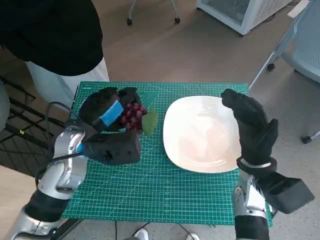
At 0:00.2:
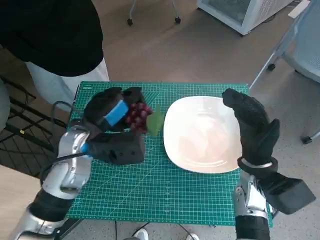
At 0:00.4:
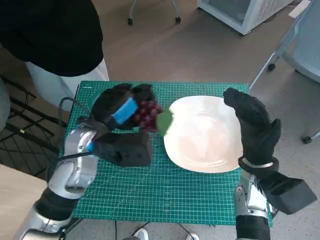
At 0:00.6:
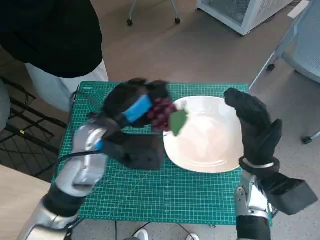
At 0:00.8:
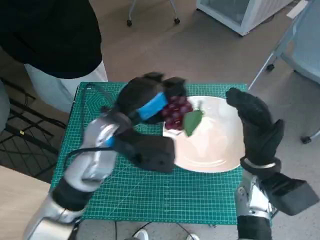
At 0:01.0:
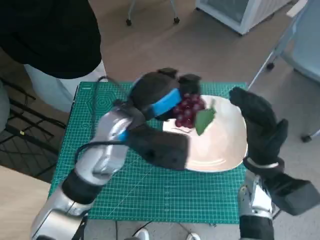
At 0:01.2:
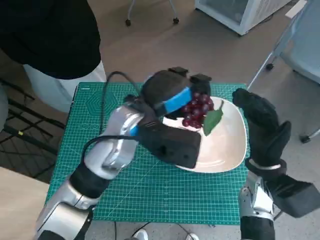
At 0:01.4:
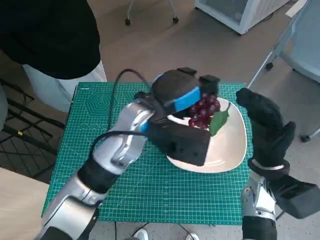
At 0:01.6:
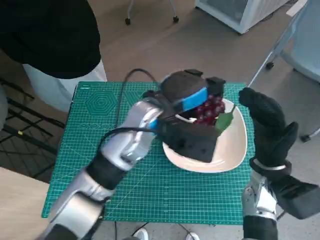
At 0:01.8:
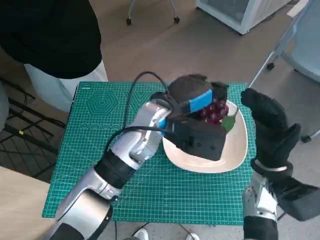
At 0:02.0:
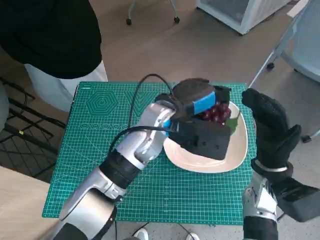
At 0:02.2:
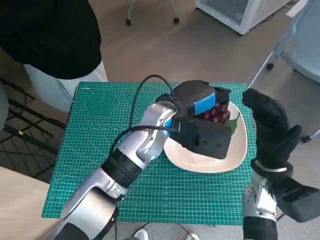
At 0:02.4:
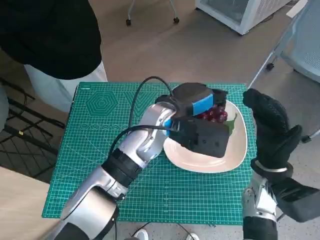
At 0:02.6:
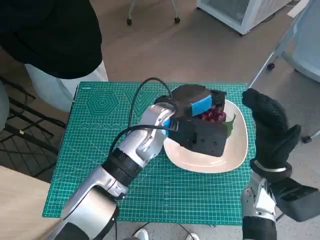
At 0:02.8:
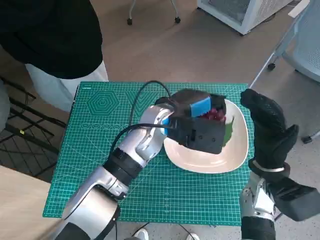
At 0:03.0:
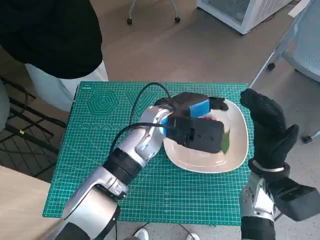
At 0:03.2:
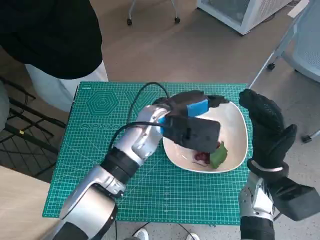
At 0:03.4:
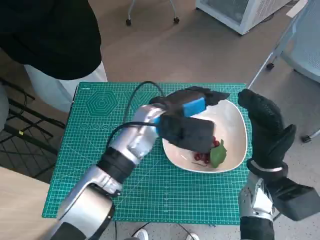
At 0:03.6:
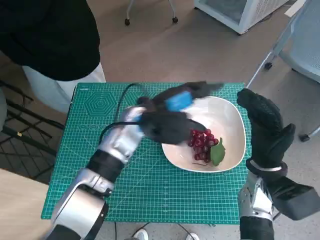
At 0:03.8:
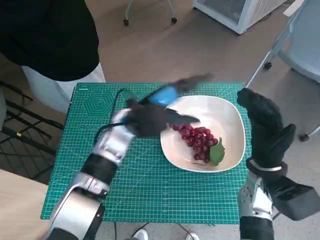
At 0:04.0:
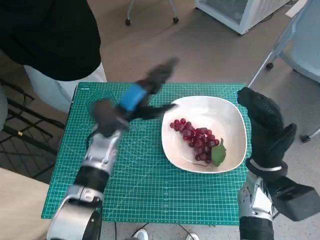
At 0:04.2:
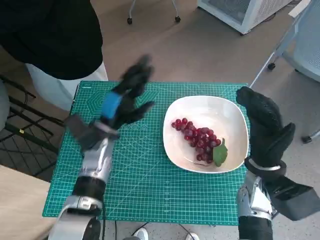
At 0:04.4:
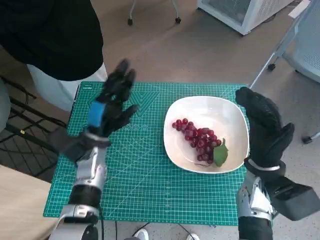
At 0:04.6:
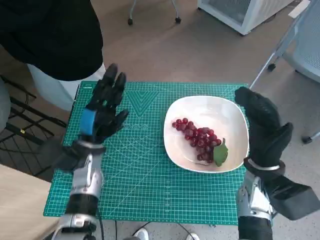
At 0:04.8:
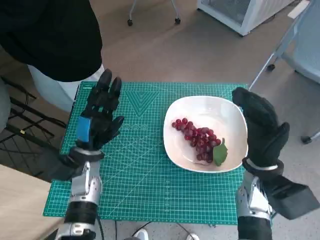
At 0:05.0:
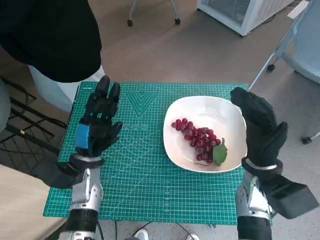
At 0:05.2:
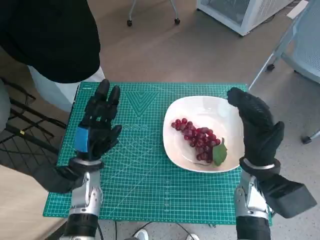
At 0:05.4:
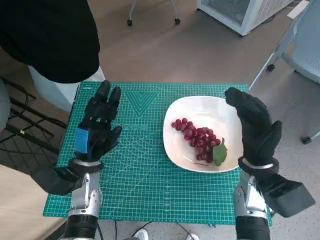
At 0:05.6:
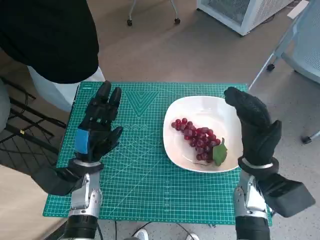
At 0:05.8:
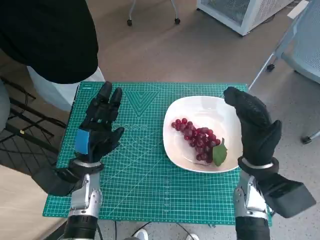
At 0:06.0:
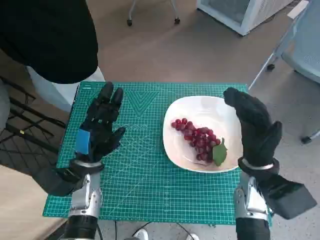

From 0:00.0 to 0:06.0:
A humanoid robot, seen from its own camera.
Task of the whole recording: Pick up the grapes and put them on the plate.
Step, from 0:00.0 to 0:03.2: Place the grapes in the plate with left hand.
From 0:00.0 to 0:01.6: The left hand goes approximately 15 cm to the right.
From 0:03.0 to 0:04.4: The left hand goes roughly 15 cm to the left and downward.
From 0:04.4 to 0:06.0: The left hand goes about 5 cm backward.

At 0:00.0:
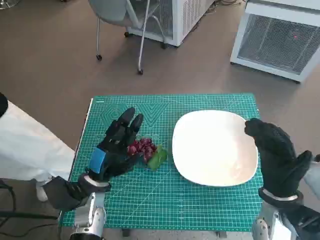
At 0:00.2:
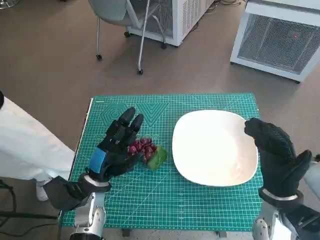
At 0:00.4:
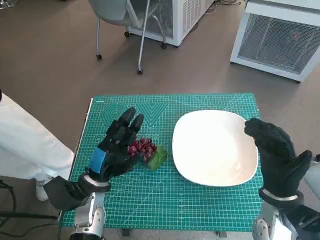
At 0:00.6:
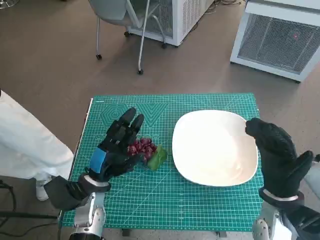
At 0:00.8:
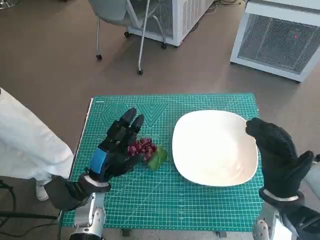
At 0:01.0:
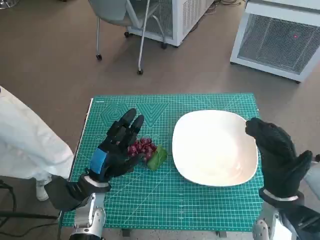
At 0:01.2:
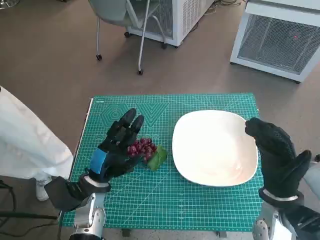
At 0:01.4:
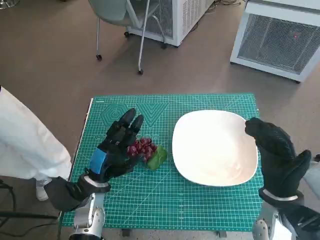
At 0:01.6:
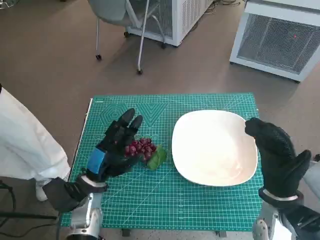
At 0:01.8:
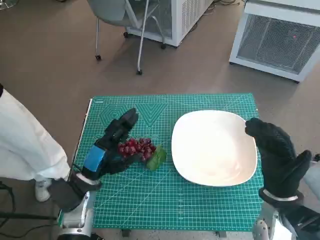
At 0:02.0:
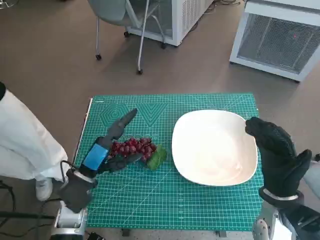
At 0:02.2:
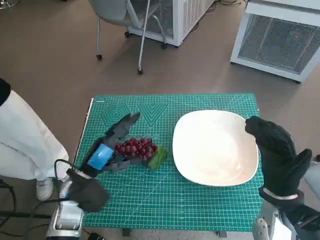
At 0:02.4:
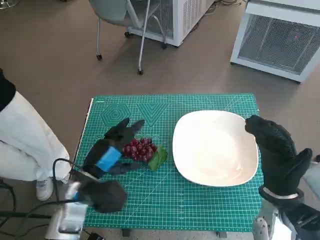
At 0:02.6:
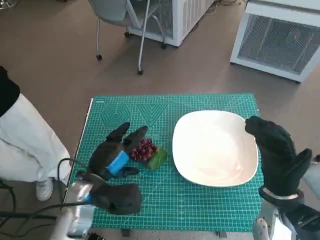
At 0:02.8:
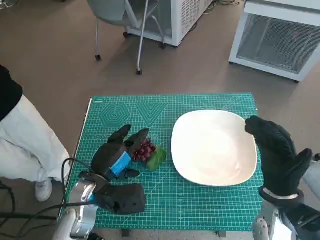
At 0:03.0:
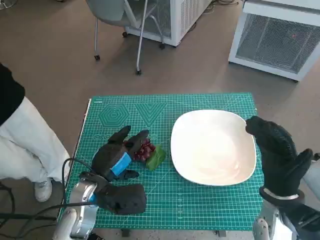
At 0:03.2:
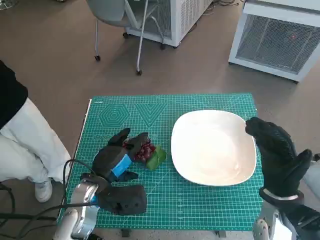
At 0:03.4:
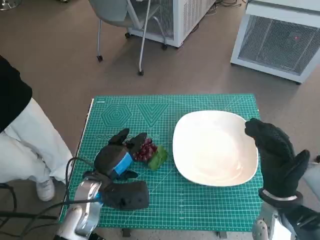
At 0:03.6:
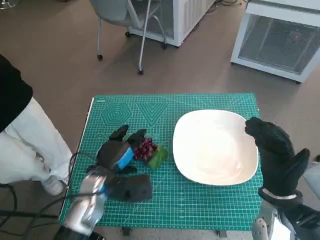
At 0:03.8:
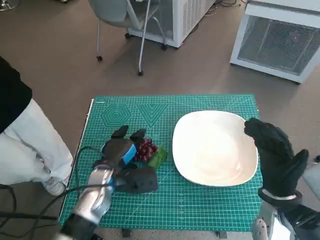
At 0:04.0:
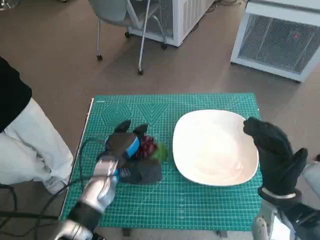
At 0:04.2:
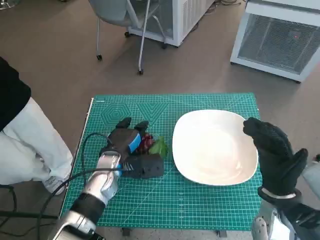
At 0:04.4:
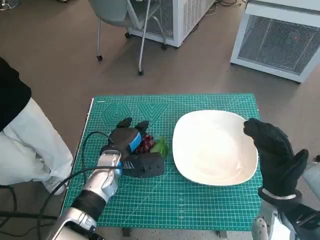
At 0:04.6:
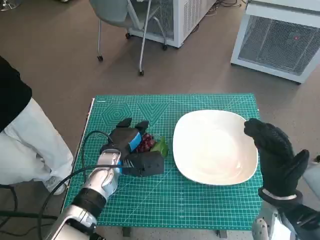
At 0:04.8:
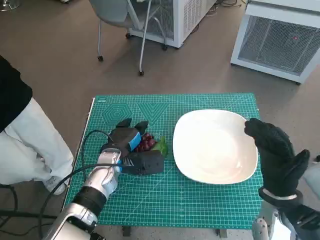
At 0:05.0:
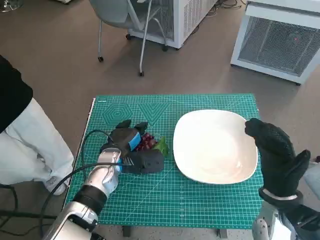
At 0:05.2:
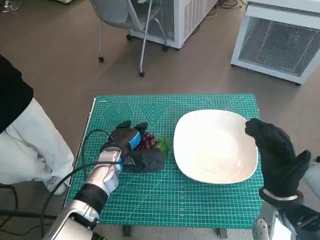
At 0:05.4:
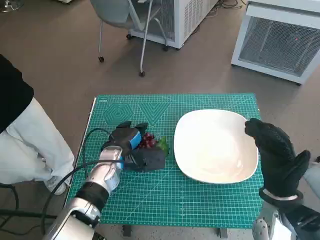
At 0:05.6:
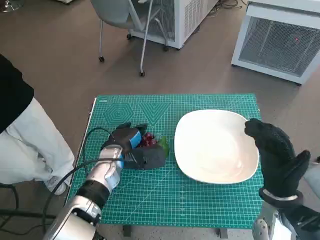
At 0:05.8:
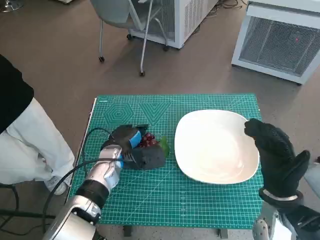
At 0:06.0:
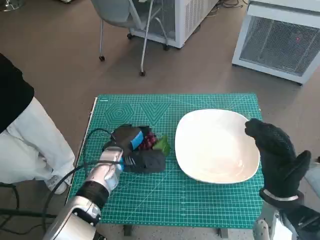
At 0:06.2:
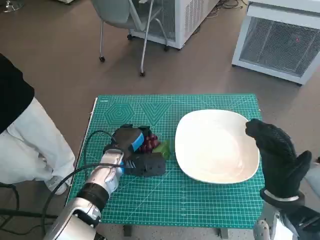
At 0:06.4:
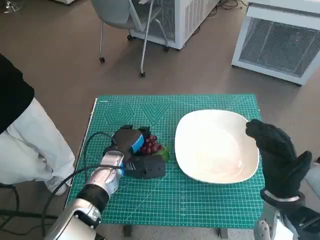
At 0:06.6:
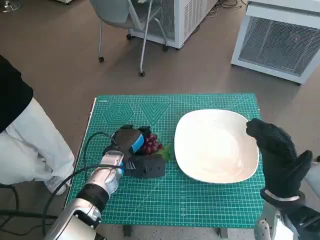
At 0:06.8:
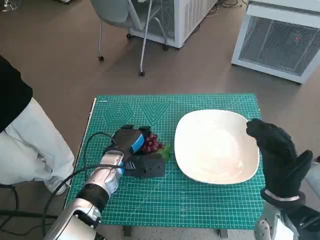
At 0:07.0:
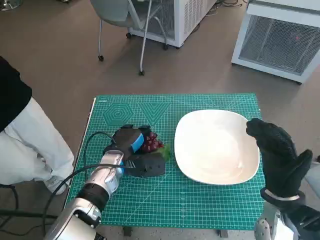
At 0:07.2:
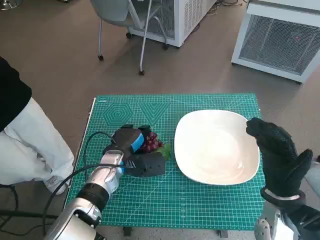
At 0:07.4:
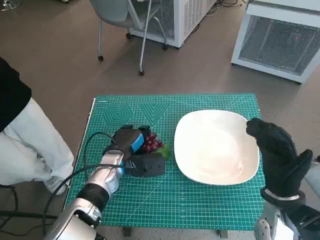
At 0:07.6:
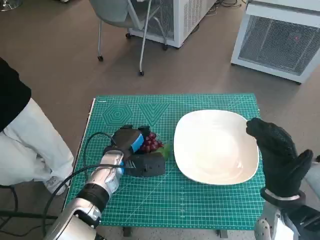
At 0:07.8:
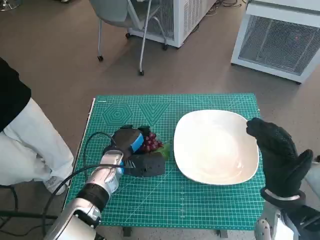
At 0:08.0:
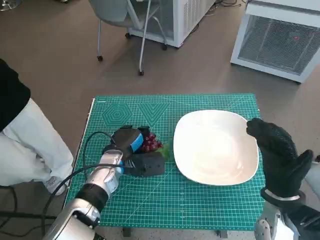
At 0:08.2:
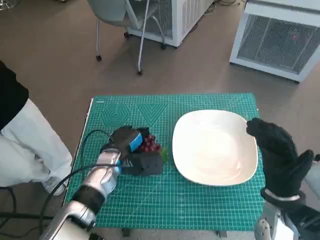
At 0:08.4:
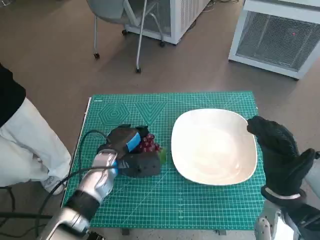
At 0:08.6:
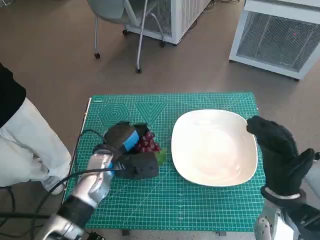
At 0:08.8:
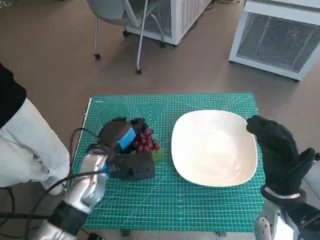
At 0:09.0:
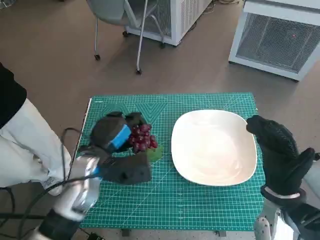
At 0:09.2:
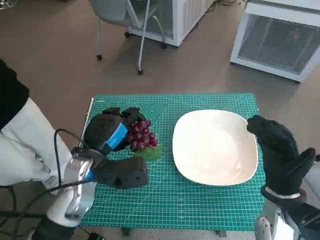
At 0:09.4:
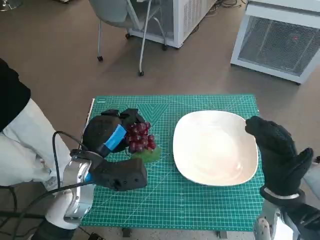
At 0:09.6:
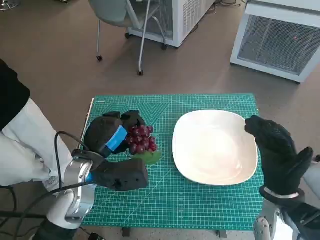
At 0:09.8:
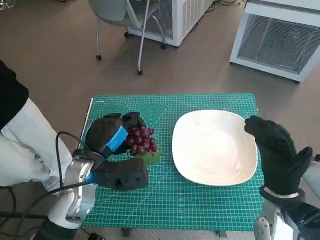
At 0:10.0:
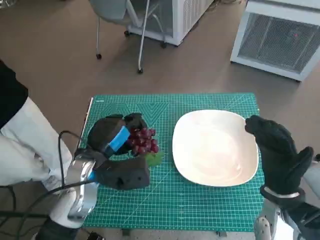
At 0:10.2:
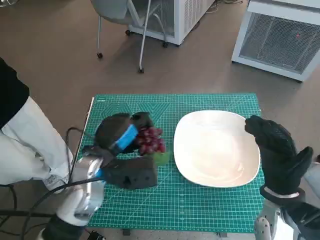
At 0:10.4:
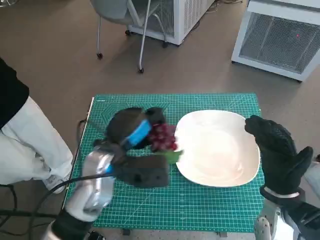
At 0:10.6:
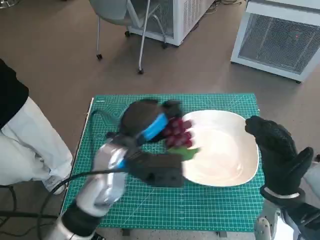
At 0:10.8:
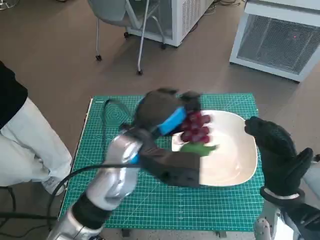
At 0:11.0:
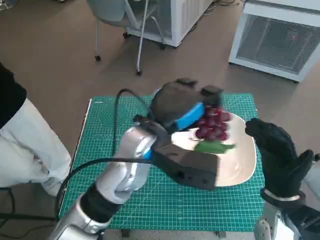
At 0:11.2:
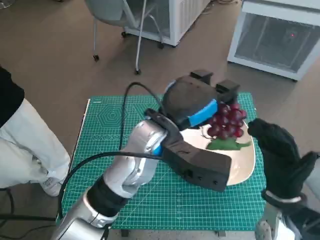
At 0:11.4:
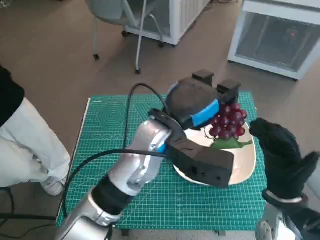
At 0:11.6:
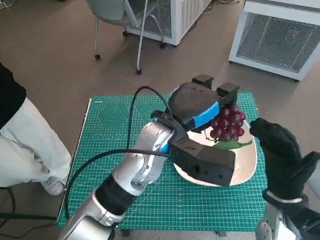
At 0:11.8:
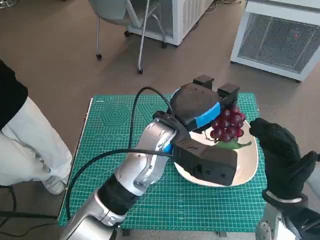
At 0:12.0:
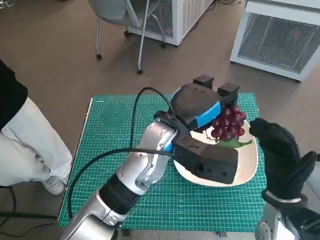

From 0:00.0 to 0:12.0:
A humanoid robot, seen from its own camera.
Task of the whole recording: Pick up the grapes and put them on the plate.
Step, from 0:00.0 to 0:08.0: Grasp the grapes with left hand.
From 0:03.0 to 0:04.4: The left hand travels forward by approximately 10 cm.
From 0:04.4 to 0:06.0: The hands move only a little.
From 0:06.0 to 0:07.6: The two hands keep their place.
From 0:07.6 to 0:09.0: The left hand shifts about 5 cm upward.
From 0:09.0 to 0:10.4: The hands stay close to where they were, moving slightly.
From 0:10.4 to 0:12.0: The left hand goes roughly 10 cm to the right.

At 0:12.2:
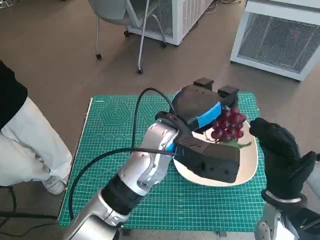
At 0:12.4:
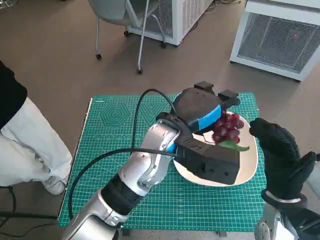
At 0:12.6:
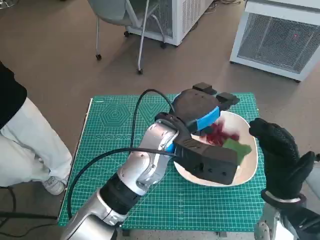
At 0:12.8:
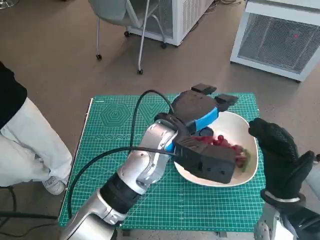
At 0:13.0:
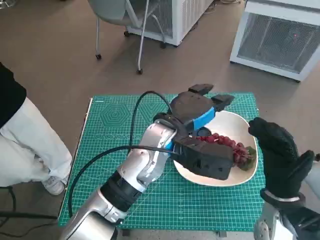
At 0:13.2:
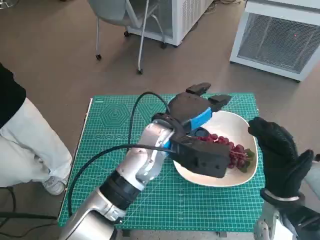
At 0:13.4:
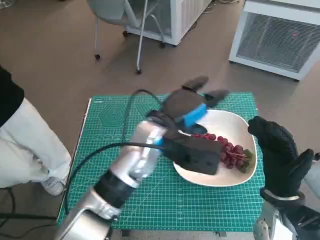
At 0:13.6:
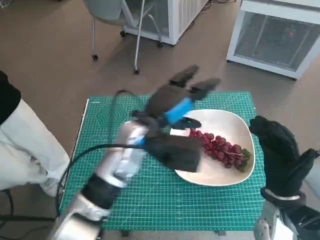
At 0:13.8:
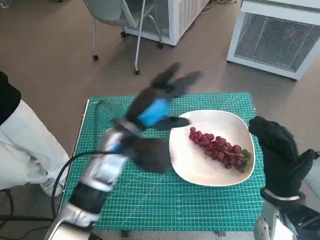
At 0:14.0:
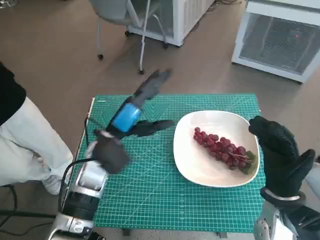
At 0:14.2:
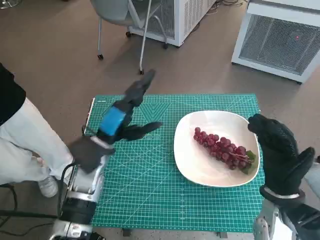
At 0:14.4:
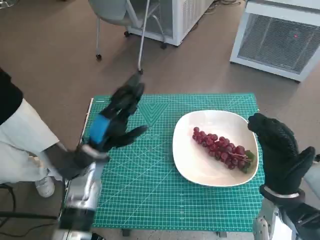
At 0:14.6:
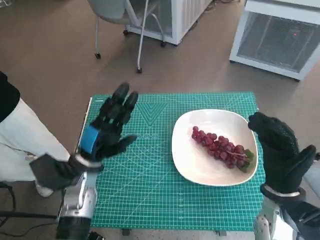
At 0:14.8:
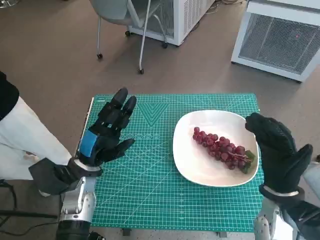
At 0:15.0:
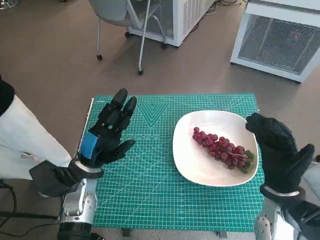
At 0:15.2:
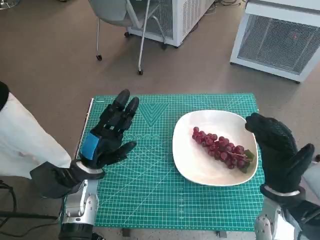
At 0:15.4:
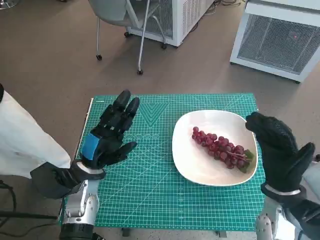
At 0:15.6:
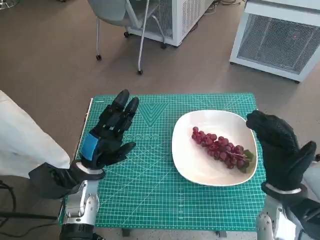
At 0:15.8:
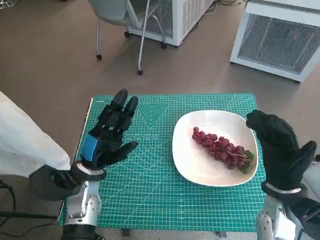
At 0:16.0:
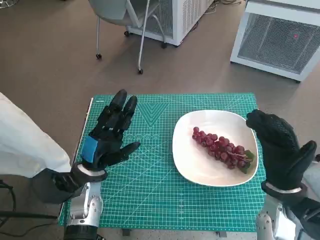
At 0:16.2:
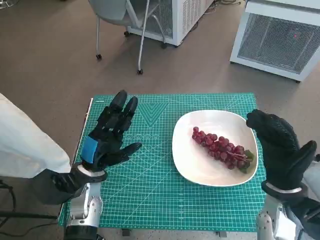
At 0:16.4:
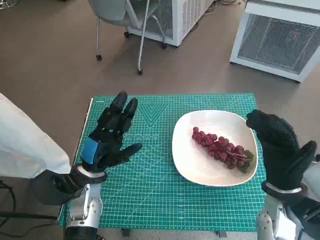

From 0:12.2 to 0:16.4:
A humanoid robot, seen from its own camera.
Task of the whole recording: Pick up the grapes and put them on the plate.
From 0:13.6 to 0:15.0: The left hand shifts about 15 cm to the left and downward.
From 0:15.0 to 0:16.4: The hands stay close to where they were, moving slightly.
